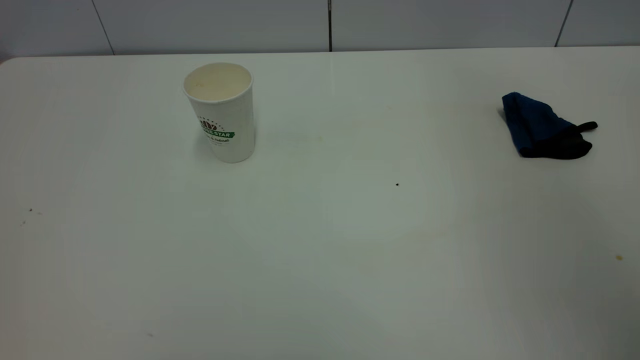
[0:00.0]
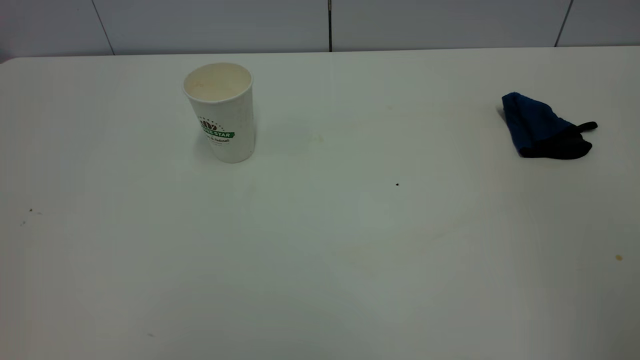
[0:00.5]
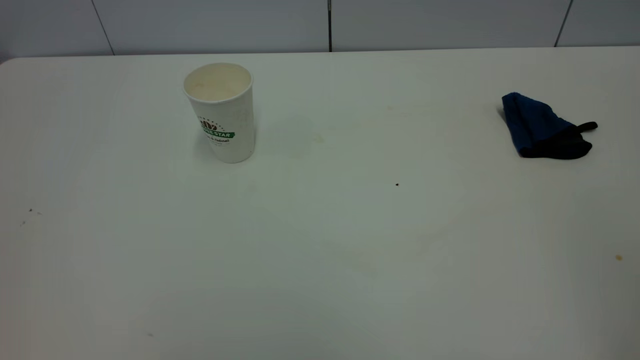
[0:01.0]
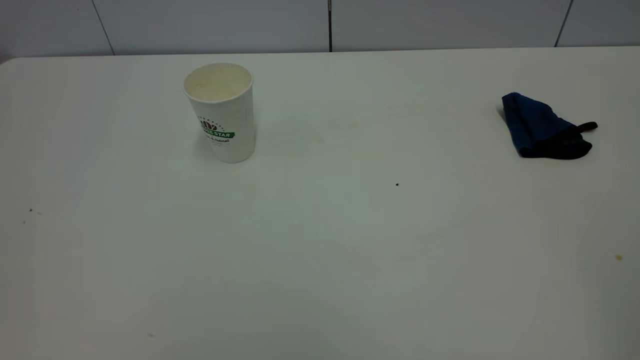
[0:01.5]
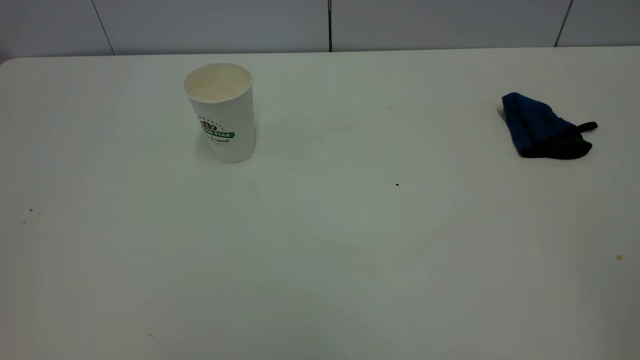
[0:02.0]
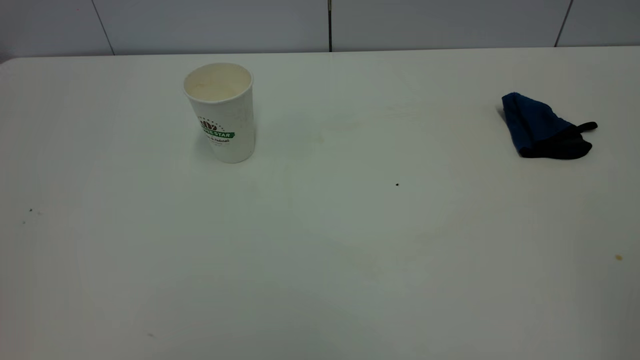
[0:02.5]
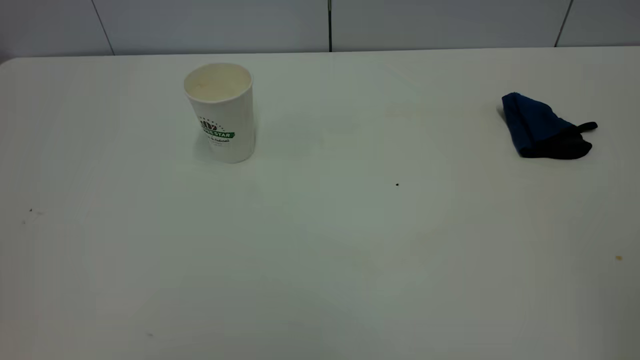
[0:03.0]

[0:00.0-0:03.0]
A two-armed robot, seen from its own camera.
Task of the whole recording: the left gripper pick up the fallen cup and place it upright, the right gripper grasp the blue rag and wipe the tea stain on the table, the right gripper put the blue rag back in its original position.
0:01.5 to 0:03.0: Neither gripper changes place.
